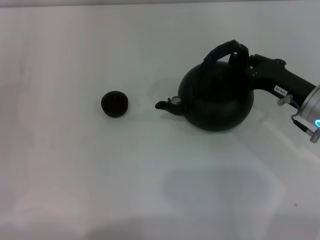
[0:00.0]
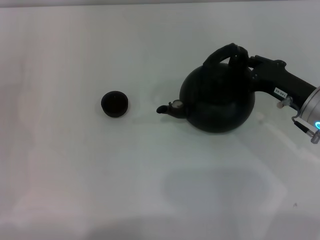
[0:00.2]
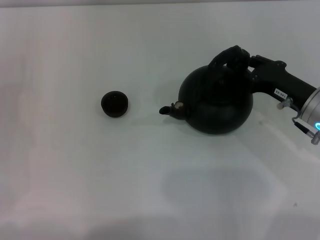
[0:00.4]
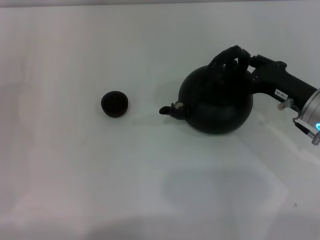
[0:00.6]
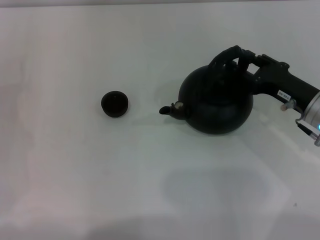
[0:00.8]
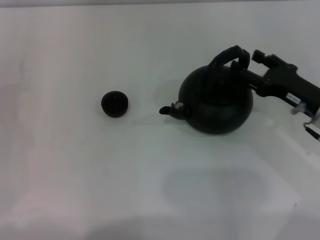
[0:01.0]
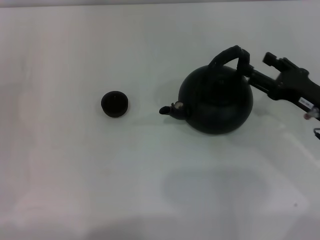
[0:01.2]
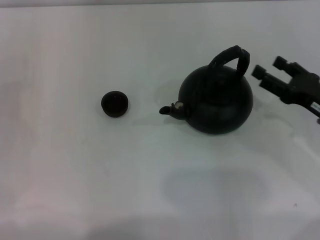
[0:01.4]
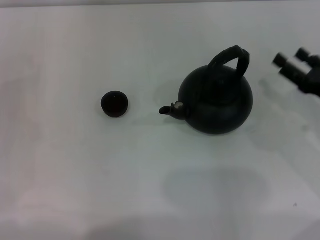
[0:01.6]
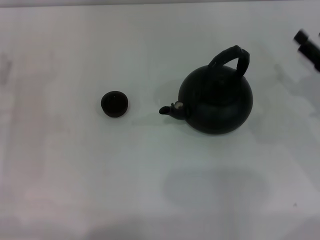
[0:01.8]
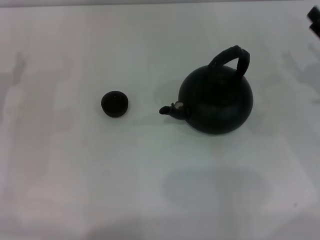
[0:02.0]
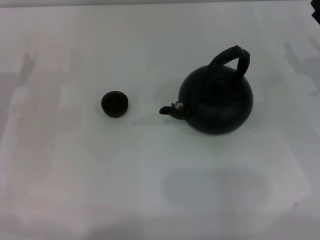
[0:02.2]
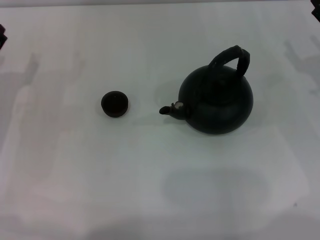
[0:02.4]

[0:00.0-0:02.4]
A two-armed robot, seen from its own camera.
Task of the whole recording: Grasp the handle of the teapot with one hand and pour tea into the teacup.
0:00.0 to 0:01.2: The right gripper opens its fingers.
0:01.2 to 0:02.4: The right gripper ends up about 5 cm from where it was.
